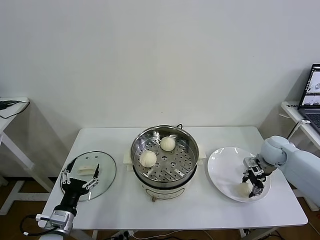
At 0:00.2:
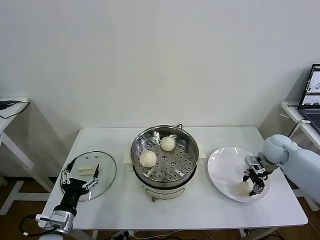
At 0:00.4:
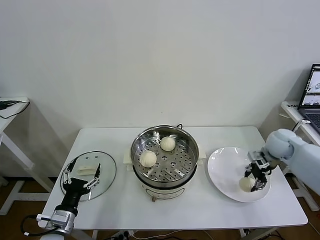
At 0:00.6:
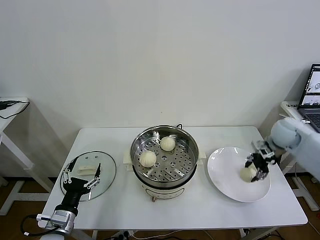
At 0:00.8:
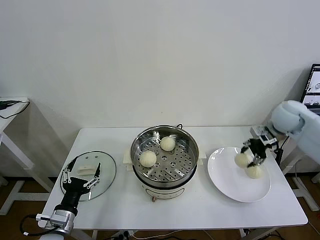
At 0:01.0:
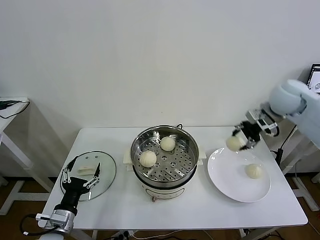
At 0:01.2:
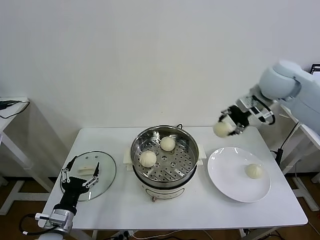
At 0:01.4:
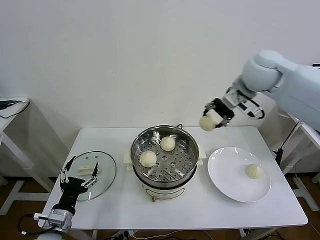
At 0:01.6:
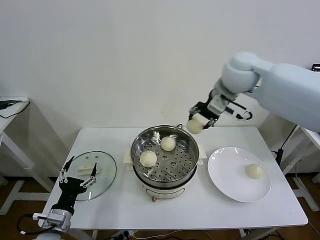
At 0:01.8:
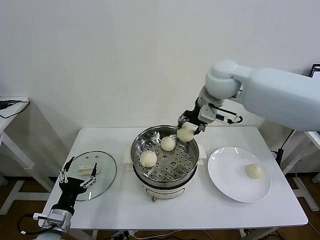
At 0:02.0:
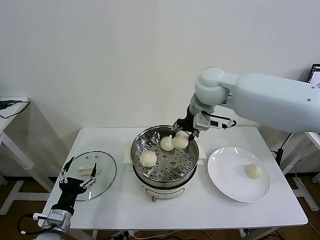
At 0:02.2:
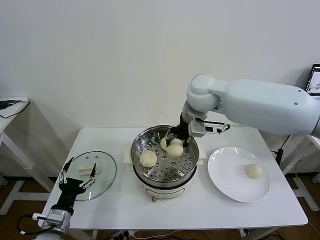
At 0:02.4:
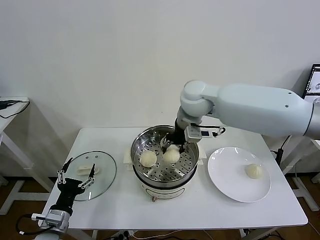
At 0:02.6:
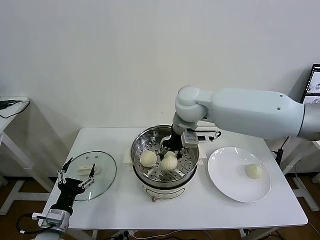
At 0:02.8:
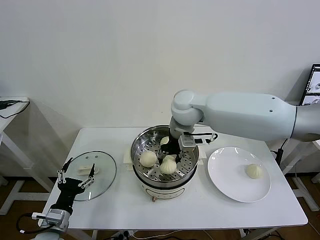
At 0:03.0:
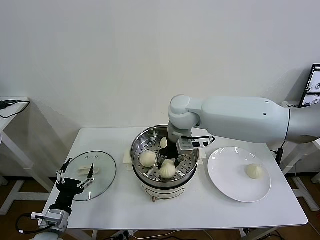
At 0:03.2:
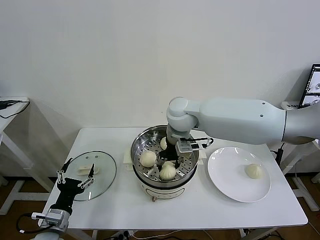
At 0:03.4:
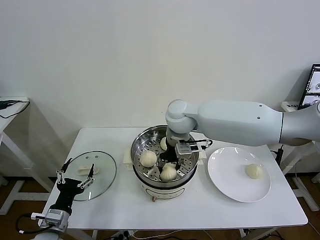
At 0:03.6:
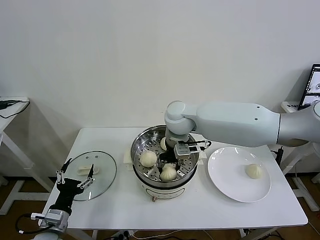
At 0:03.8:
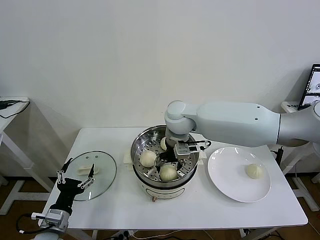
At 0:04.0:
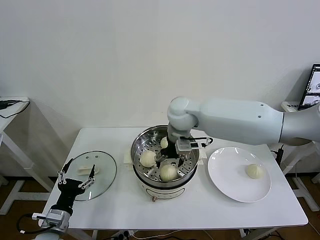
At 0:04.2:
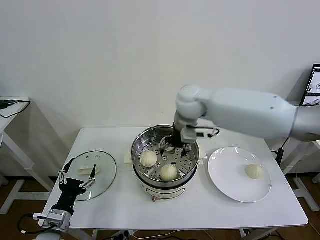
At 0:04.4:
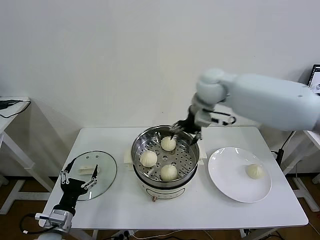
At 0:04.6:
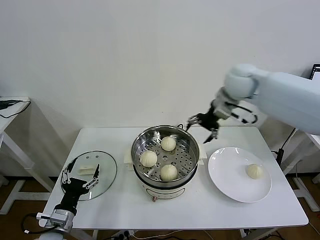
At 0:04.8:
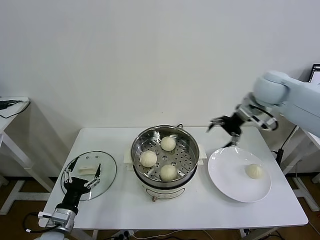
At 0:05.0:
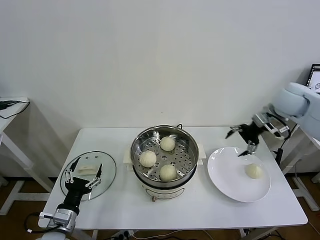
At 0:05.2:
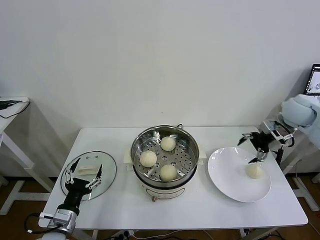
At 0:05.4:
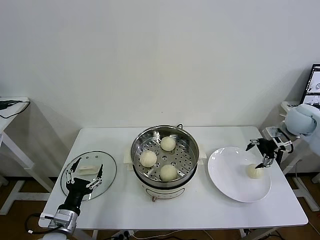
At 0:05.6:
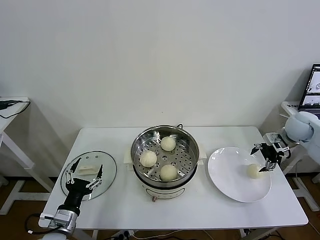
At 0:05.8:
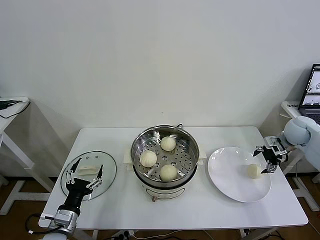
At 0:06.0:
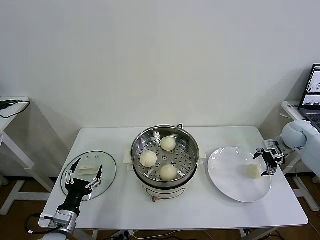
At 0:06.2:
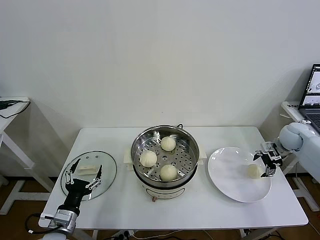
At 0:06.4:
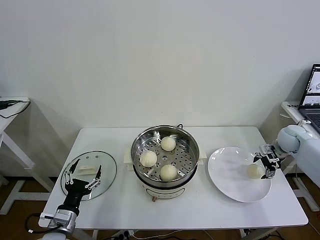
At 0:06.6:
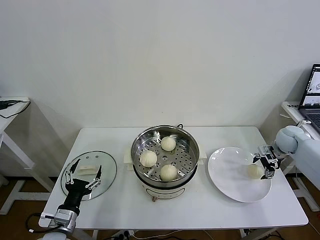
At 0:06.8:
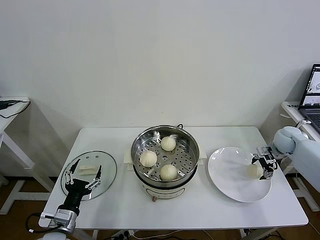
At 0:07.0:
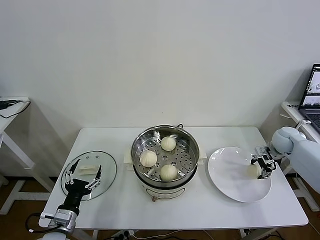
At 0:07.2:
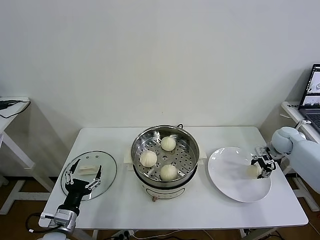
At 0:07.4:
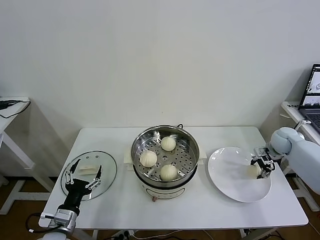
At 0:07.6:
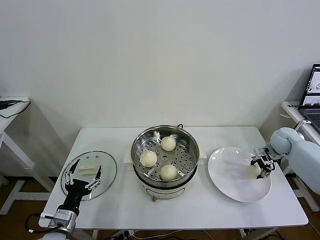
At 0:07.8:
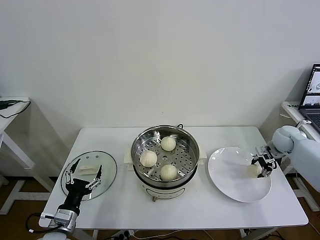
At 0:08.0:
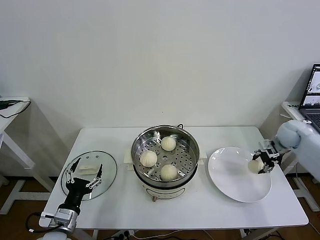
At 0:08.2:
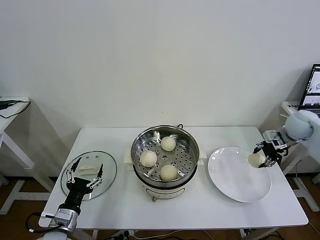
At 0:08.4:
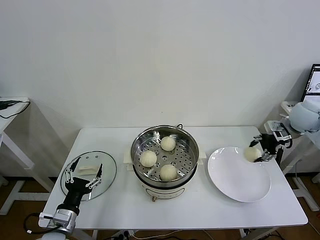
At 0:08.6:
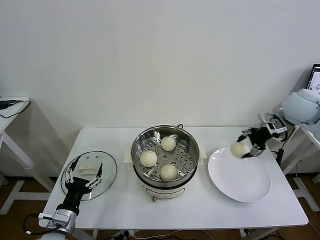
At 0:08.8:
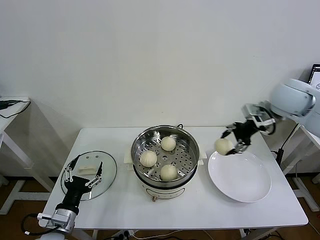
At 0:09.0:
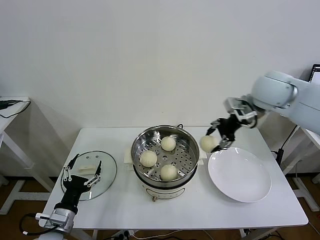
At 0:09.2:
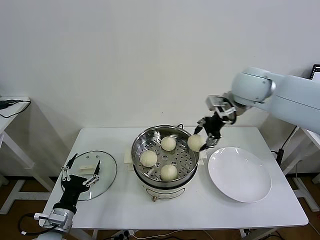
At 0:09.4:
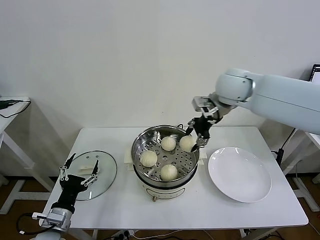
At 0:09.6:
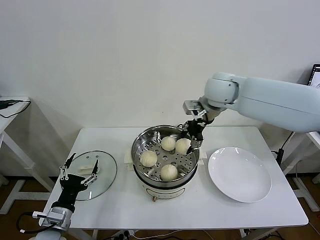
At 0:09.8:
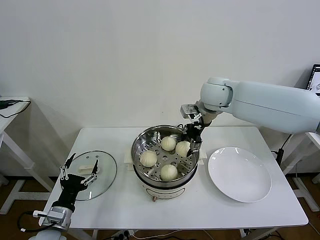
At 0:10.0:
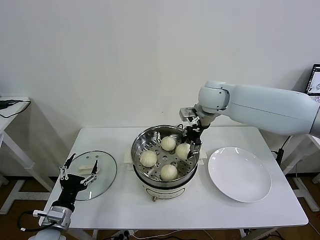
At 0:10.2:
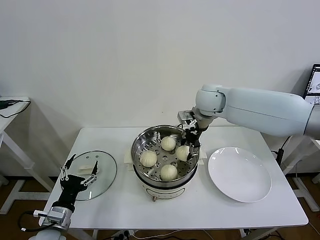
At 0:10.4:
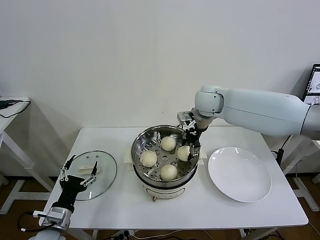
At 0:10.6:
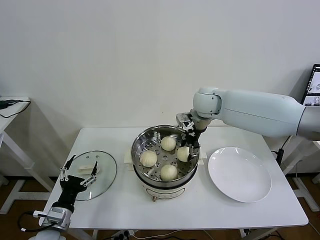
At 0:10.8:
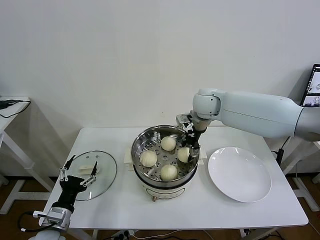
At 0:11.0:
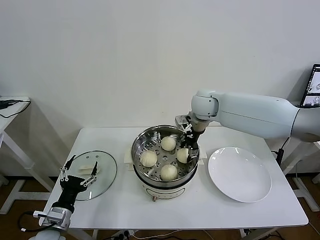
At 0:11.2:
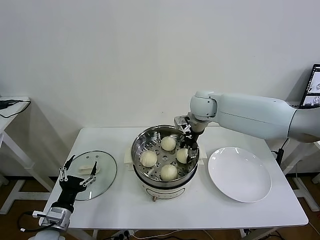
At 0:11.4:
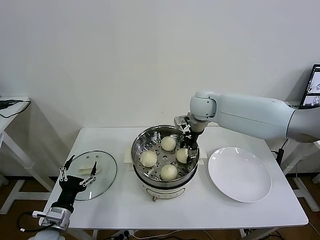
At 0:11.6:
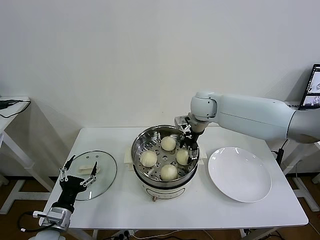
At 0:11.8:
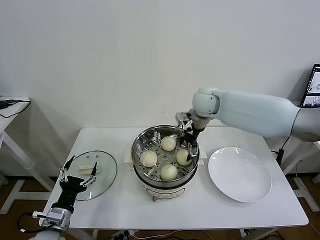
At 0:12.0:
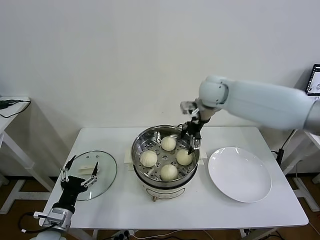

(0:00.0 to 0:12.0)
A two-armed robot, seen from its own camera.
Task of the whole recording: take steamed baozi put them in steamer then cover it.
Step, 0:00.0 - 0:03.8: Place the baozi on the steamer with right gripper.
Step, 0:04.2 - 0:07.2: Grasp the baozi in the plate with right gripper.
Step, 0:07.4 - 0:11.6: Place the baozi on the steamer with right gripper.
0:00.0 - 0:01.6: The right gripper travels upward and to the left by about 35 cm.
0:01.6 - 0:03.0: The right gripper is displaced to the left and downward by about 15 cm.
0:03.0 - 0:04.4: The right gripper is displaced to the right, upward and forward by roughly 15 cm, and opens up.
0:04.4 - 0:06.0: The right gripper travels to the right and downward by about 40 cm.
0:06.0 - 0:07.6: The right gripper moves roughly 5 cm, and closes.
0:07.6 - 0:09.0: The right gripper is displaced upward and to the left by some 30 cm.
0:09.0 - 0:10.4: The right gripper travels to the left, downward and forward by roughly 15 cm.
0:10.4 - 0:12.0: The right gripper opens.

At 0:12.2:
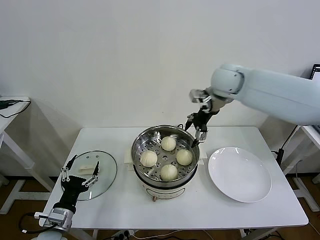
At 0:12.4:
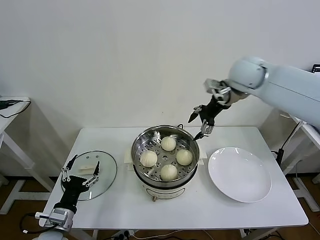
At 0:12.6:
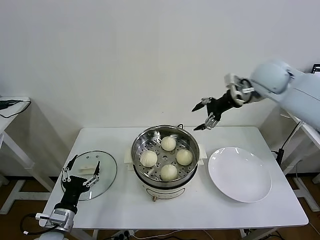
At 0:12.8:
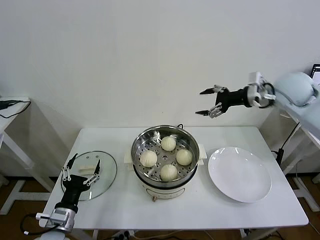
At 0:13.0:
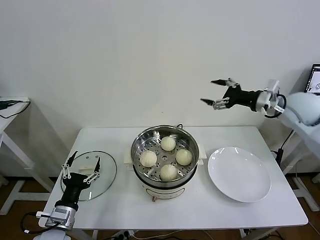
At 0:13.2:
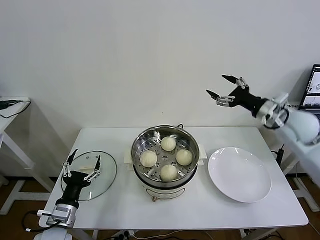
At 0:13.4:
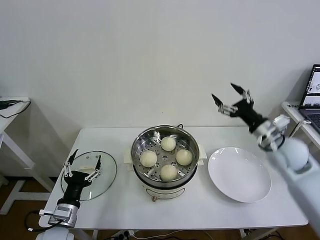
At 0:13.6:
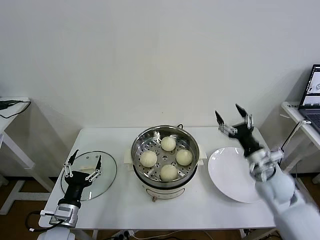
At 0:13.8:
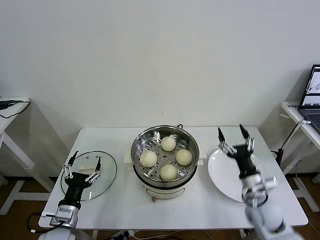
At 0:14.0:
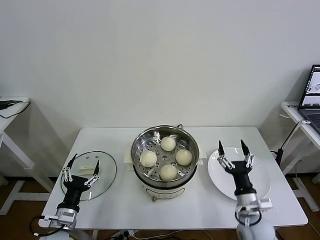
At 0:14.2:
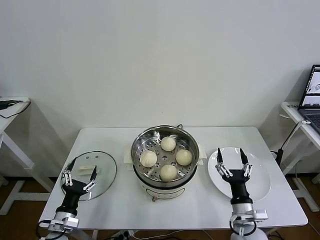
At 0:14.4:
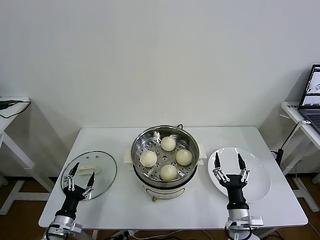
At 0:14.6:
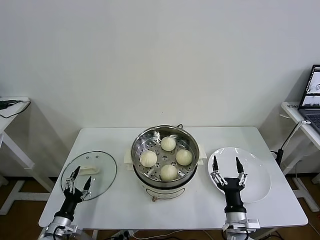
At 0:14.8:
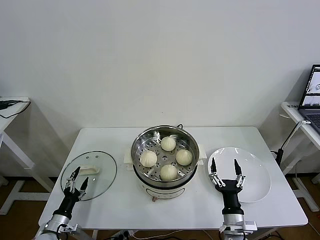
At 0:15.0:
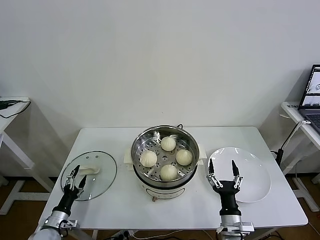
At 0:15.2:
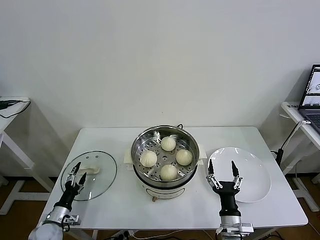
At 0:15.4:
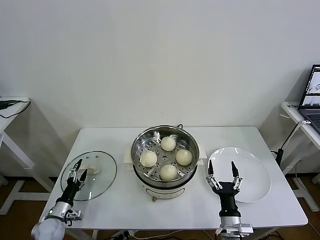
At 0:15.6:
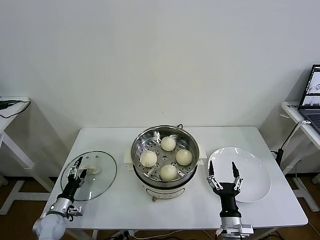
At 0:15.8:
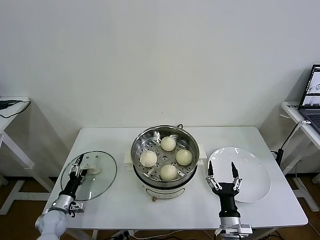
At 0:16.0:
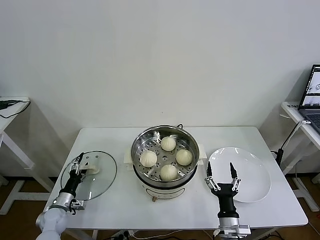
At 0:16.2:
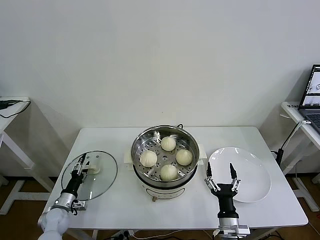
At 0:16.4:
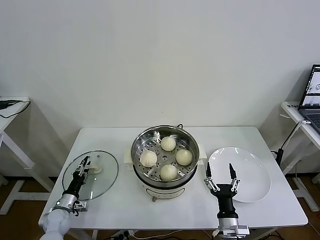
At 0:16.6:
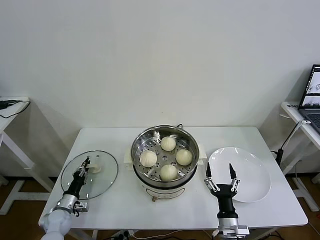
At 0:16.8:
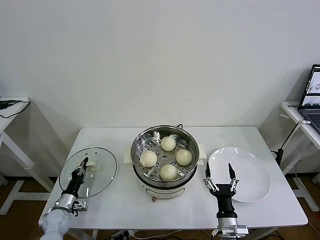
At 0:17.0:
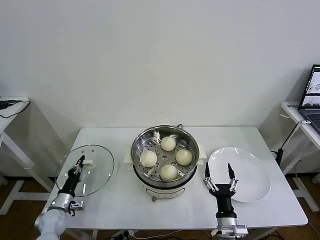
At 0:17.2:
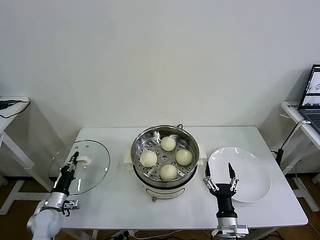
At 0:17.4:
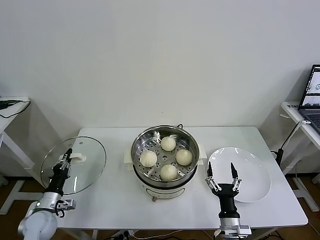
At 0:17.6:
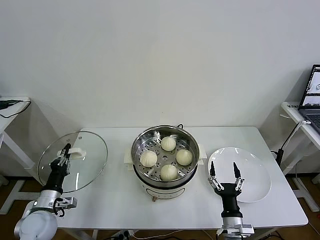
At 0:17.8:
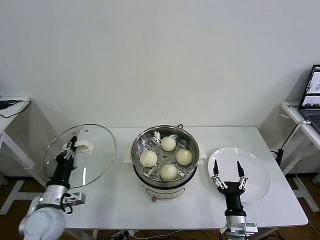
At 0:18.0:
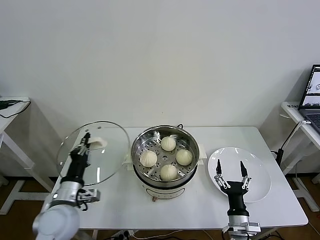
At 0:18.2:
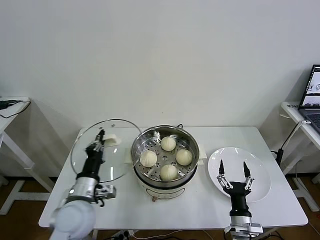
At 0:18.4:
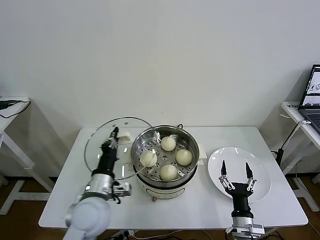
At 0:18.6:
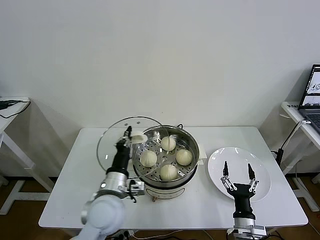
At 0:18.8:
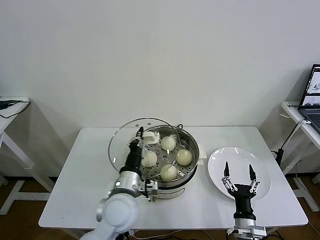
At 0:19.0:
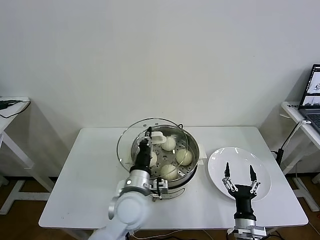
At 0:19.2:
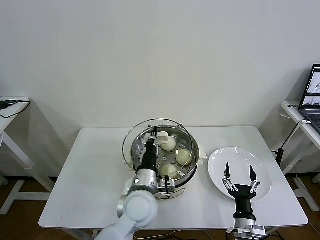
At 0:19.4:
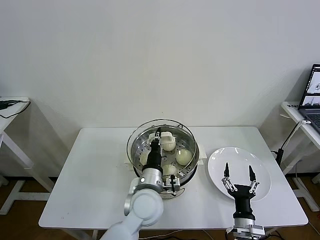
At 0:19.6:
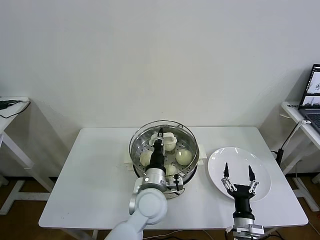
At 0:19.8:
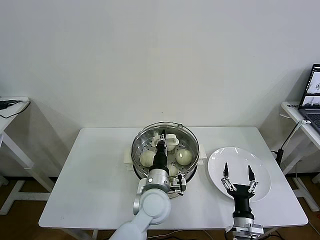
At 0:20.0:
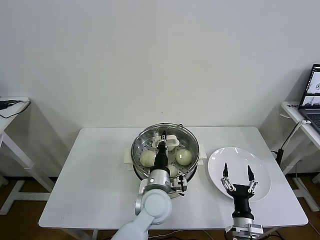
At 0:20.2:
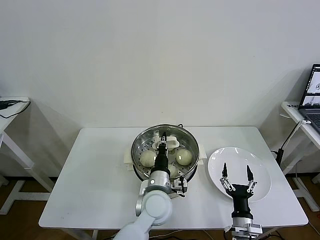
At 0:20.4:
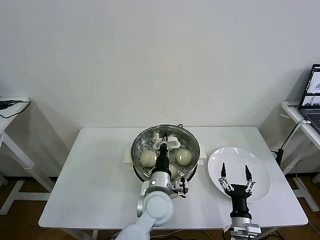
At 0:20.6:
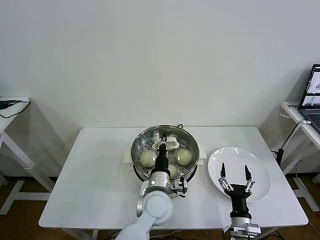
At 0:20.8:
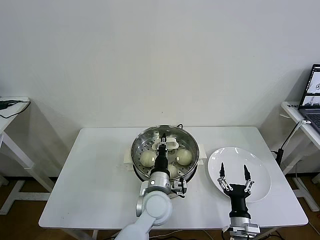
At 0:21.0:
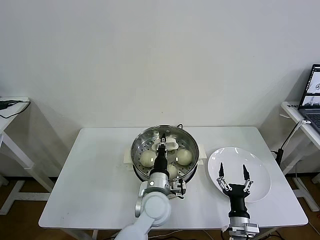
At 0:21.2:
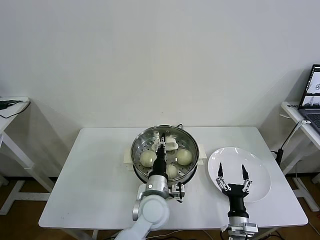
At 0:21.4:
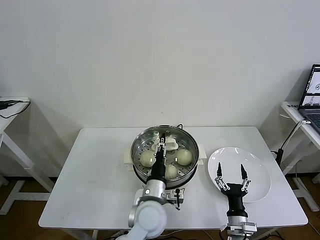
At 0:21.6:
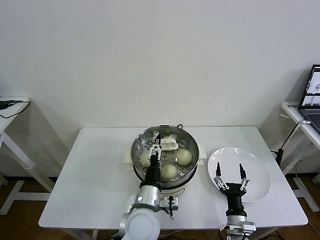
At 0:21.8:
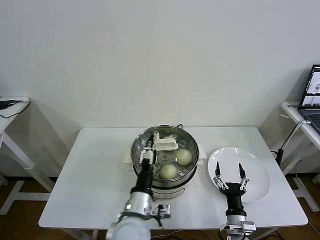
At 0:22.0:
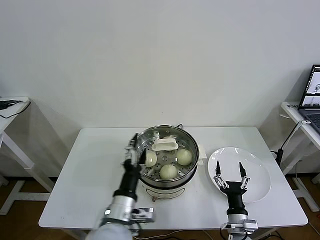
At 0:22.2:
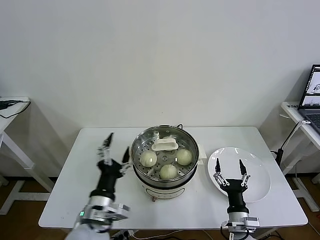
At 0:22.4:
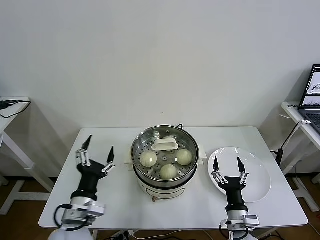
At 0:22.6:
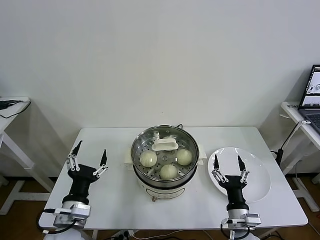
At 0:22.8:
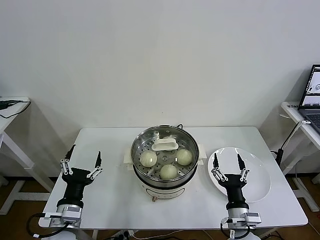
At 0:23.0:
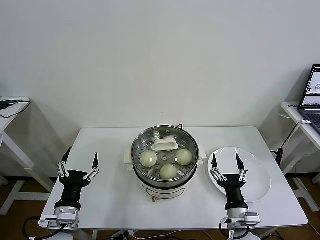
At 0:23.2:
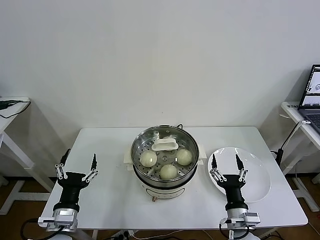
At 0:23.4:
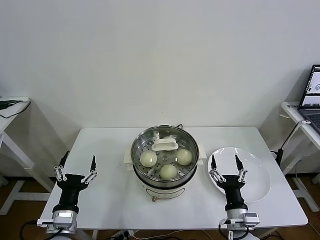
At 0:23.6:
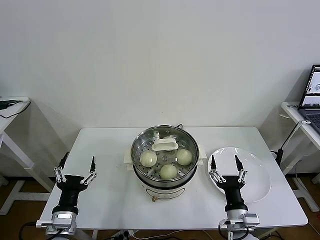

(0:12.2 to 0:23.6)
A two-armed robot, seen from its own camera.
Task of the whole recording: take steamed baozi put them in steamer then cover it.
Step, 0:12.2 - 0:16.8: Grasp the pot lid with left gripper.
Step, 0:17.0 - 0:21.8: Place the pot lid on the steamer with left gripper.
0:12.2 - 0:13.6: The right gripper moves downward, backward and to the right, roughly 35 cm.
0:13.6 - 0:15.0: The left gripper moves downward and to the left, approximately 15 cm. The right gripper is displaced downward, backward and to the left by about 25 cm.
0:15.0 - 0:16.4: The left gripper heads forward, covering approximately 10 cm, and closes up.
0:16.4 - 0:17.8: The left gripper goes some 20 cm upward, and closes up.
0:17.8 - 0:19.4: The left gripper heads to the right, covering some 30 cm.
0:19.4 - 0:20.8: The left gripper ends up some 5 cm from where it was.
0:20.8 - 0:22.2: The left gripper goes about 20 cm to the left, backward and upward, and opens up.
0:22.2 - 0:23.6: The left gripper heads to the left and downward, covering some 15 cm.
